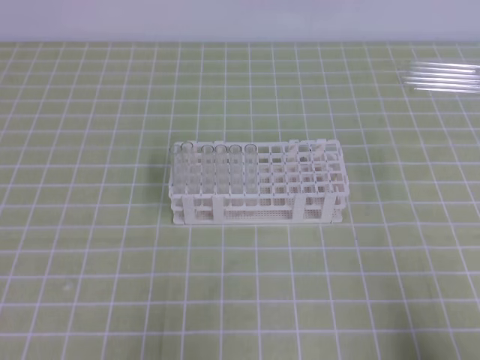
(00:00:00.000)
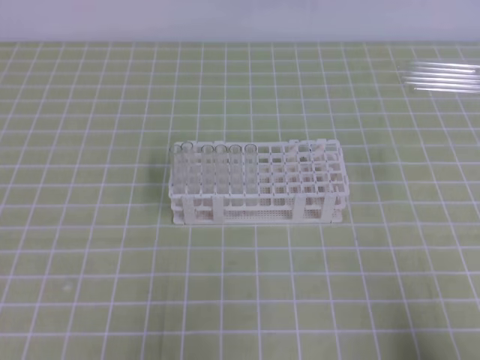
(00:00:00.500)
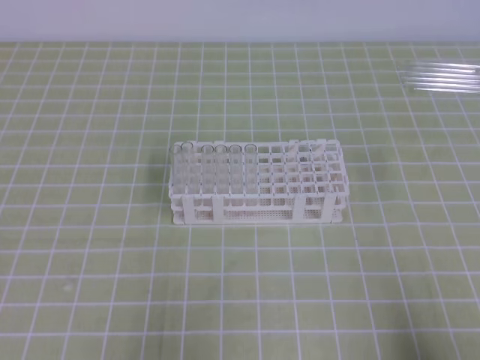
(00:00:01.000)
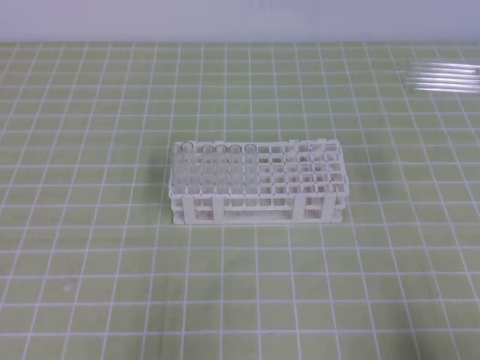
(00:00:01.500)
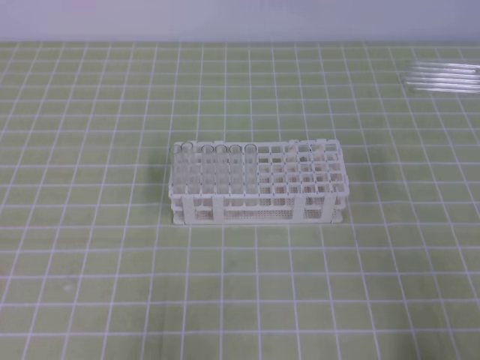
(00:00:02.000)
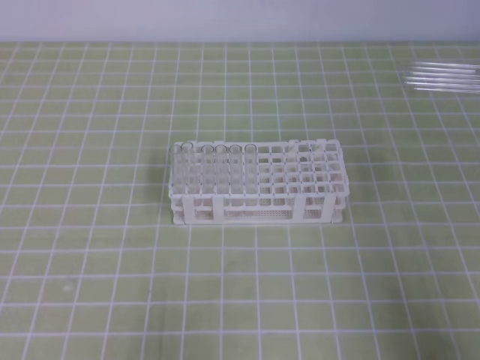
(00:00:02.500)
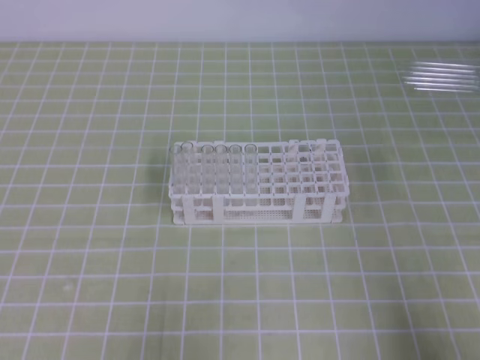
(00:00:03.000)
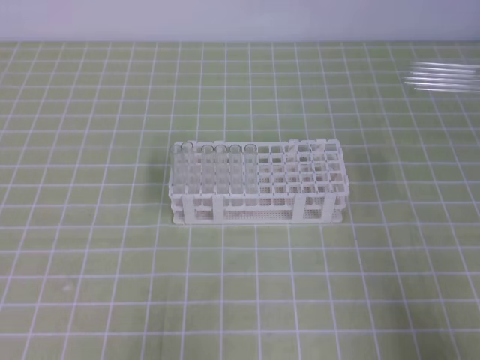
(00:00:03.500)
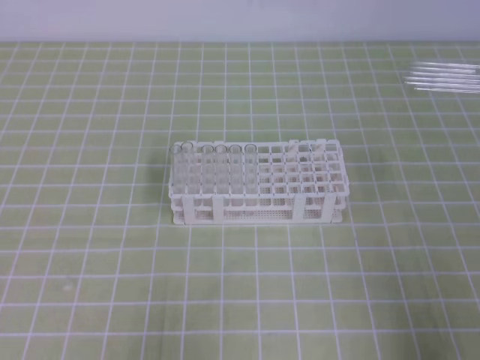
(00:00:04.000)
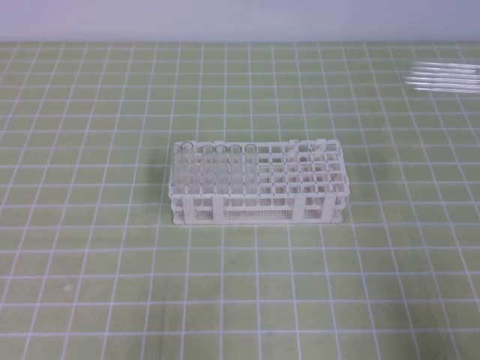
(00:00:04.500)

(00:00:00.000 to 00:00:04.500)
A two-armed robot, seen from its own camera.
00:00:00.000 - 00:00:04.500: Neither gripper changes place.

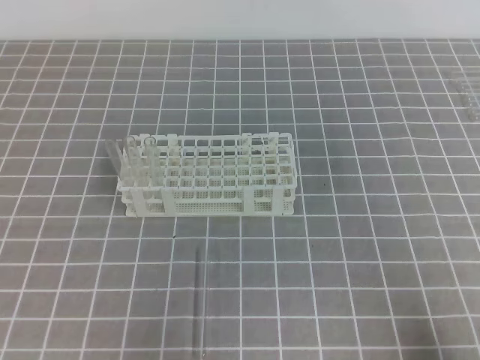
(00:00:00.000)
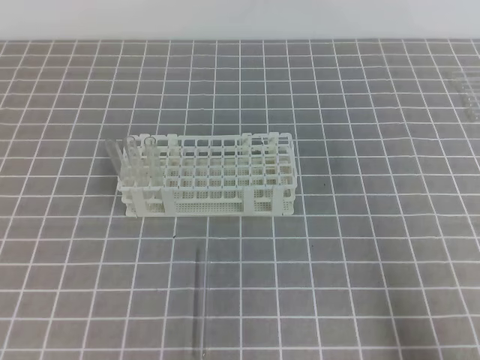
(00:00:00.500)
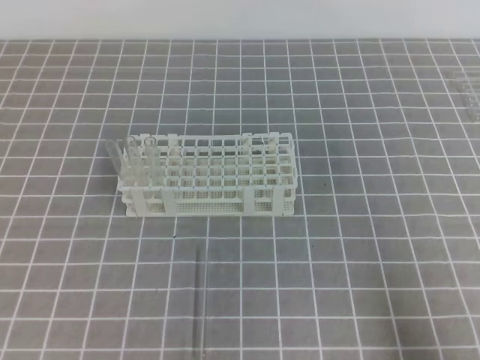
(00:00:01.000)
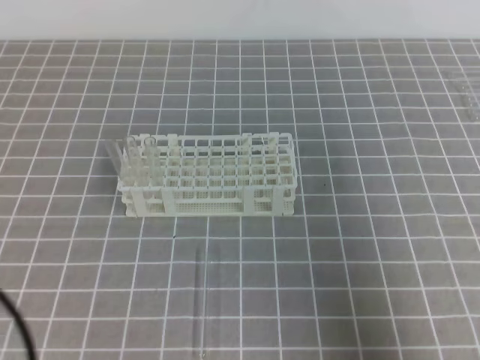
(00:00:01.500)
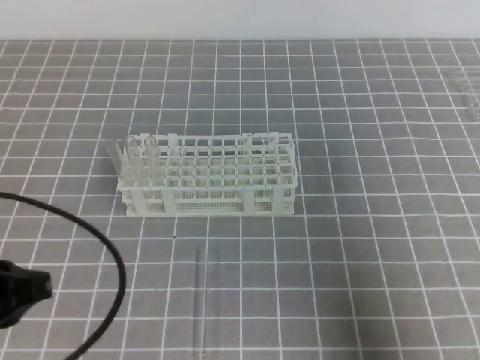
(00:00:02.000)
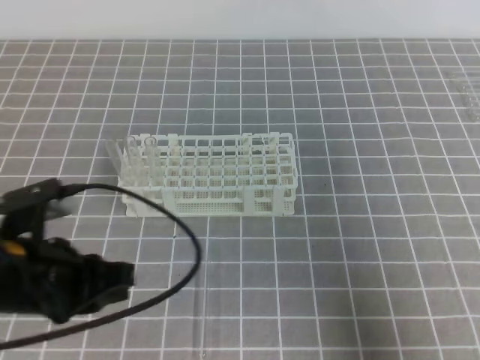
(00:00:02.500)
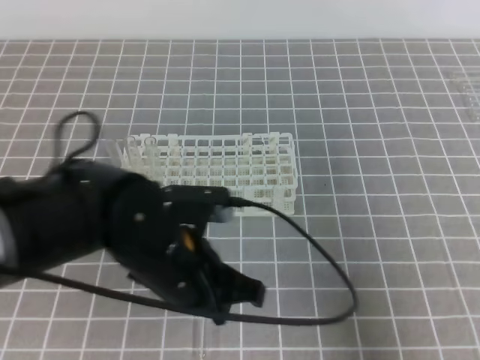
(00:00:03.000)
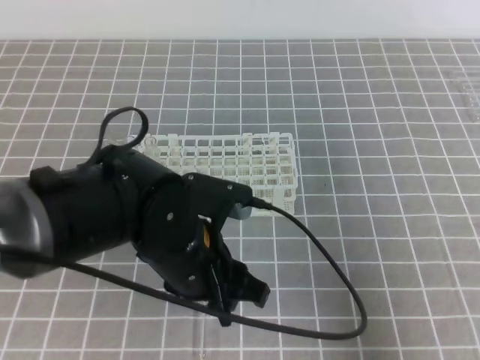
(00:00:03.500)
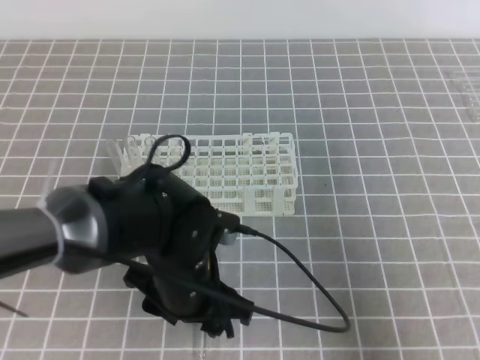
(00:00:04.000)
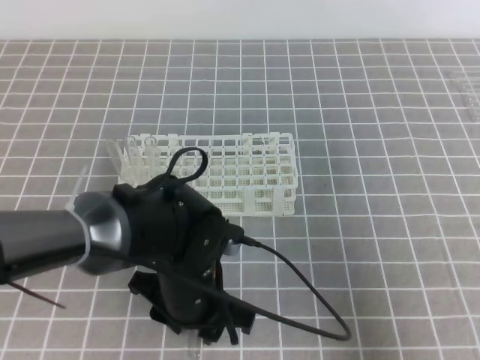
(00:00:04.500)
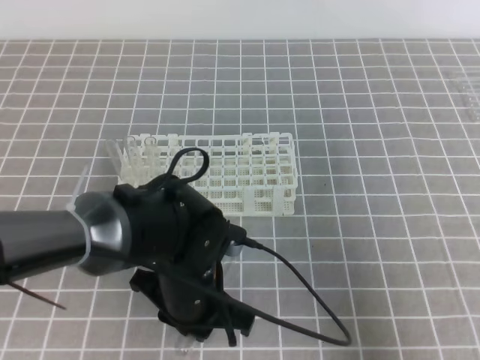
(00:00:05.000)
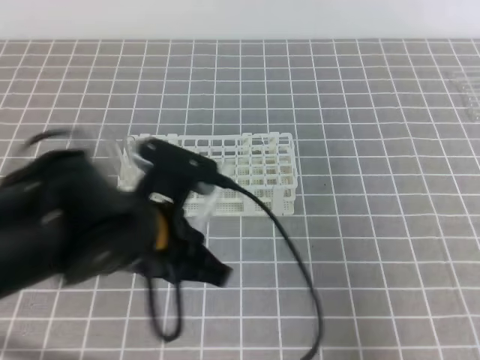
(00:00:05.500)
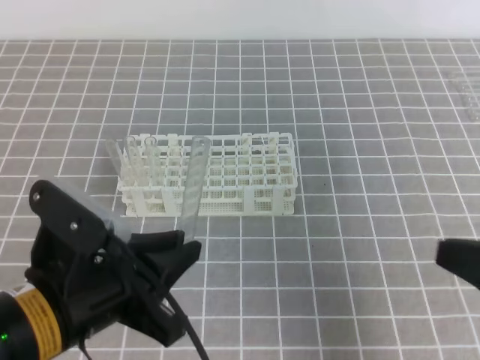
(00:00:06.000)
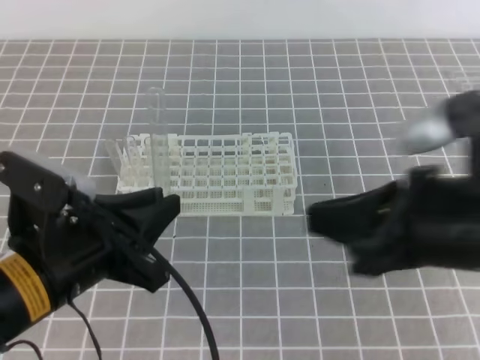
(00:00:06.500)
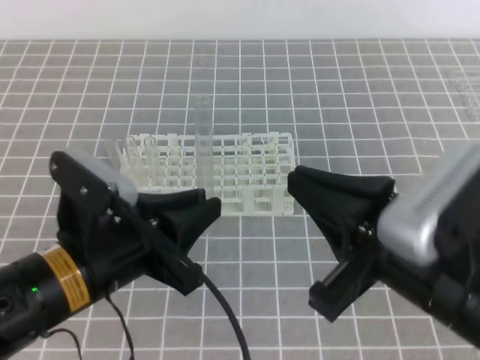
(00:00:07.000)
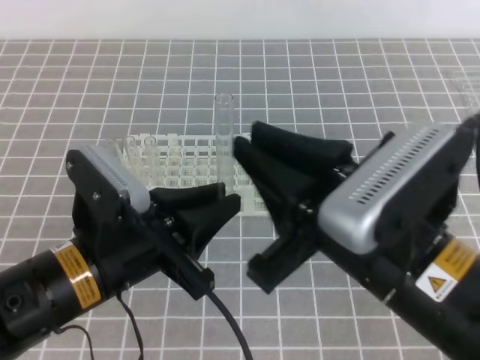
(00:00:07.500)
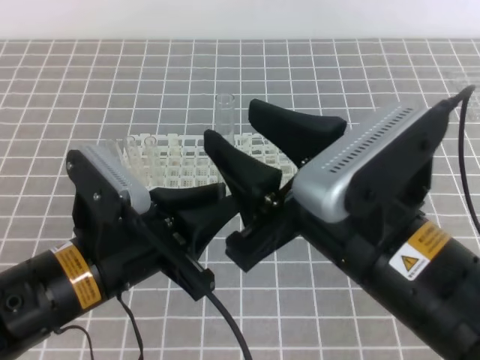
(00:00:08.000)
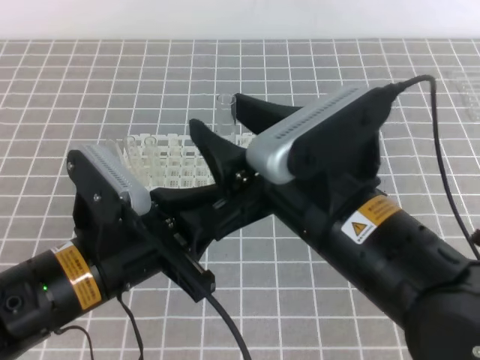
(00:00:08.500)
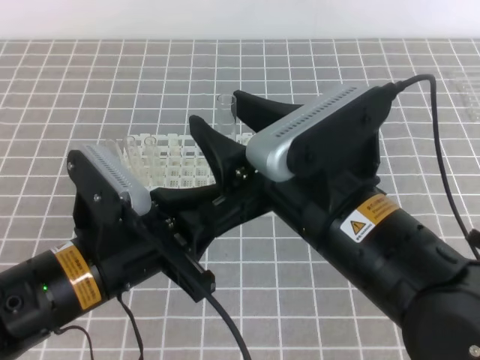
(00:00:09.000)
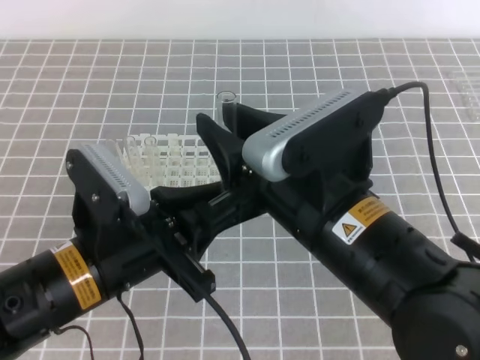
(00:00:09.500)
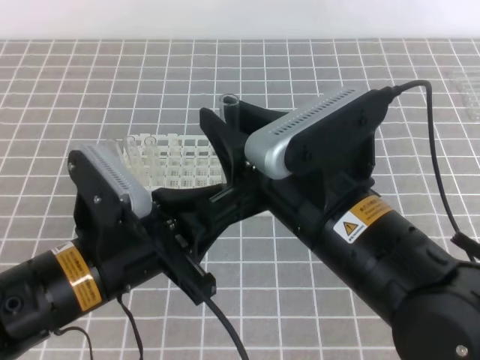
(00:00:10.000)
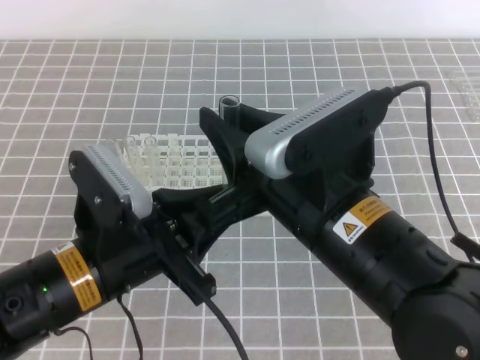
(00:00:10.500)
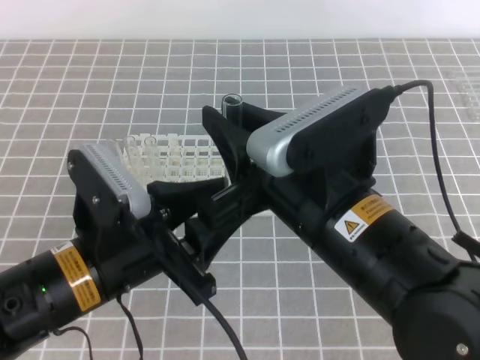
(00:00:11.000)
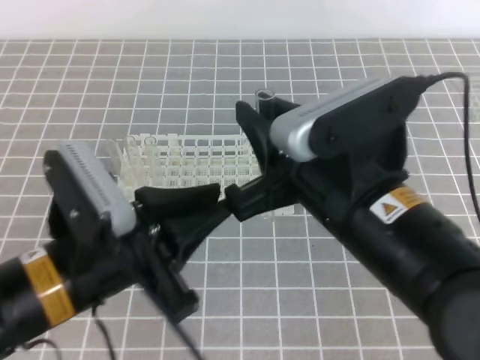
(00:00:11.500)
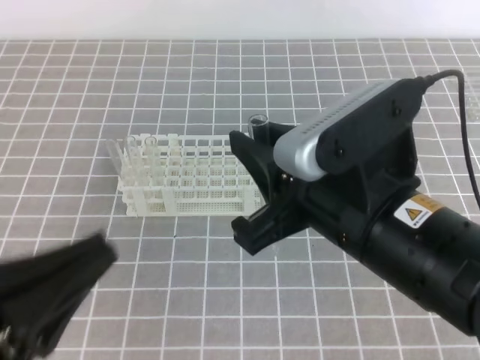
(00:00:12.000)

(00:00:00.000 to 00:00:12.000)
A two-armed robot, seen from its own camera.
00:00:00.000 - 00:00:02.000: The right gripper moves upward, some 10 cm; the left gripper is displaced upward and forward by approximately 10 cm.
00:00:02.000 - 00:00:04.000: The left gripper shifts about 25 cm to the right, downward and forward, and opens.
00:00:04.000 - 00:00:06.000: The right gripper moves some 5 cm. The left gripper moves to the left, upward and backward, approximately 15 cm, and closes.
00:00:06.000 - 00:00:08.000: The right gripper moves to the left, roughly 15 cm, and opens its fingers.
00:00:08.000 - 00:00:10.000: The right gripper closes its fingers.
00:00:10.000 - 00:00:12.000: The left gripper is displaced backward, to the left and upward by some 15 cm, and opens, then closes once more.

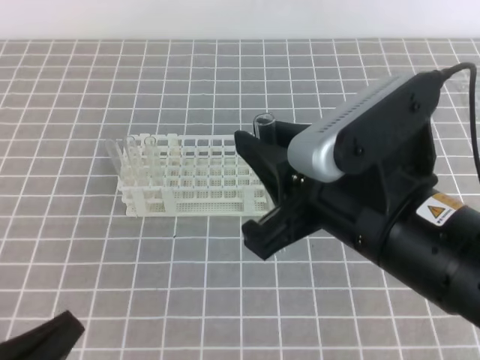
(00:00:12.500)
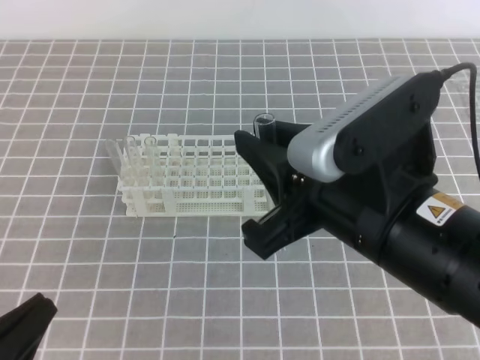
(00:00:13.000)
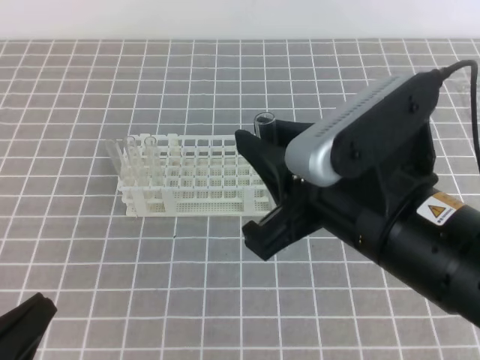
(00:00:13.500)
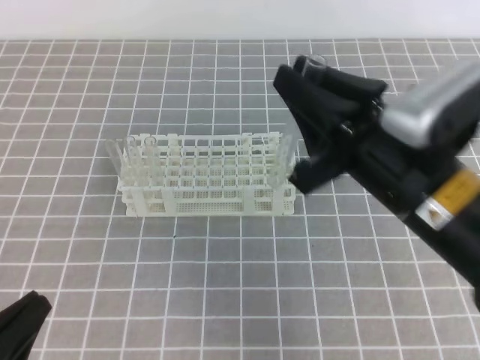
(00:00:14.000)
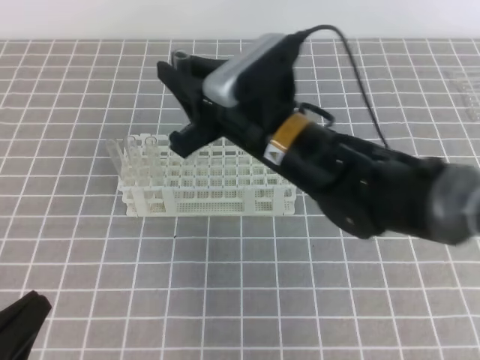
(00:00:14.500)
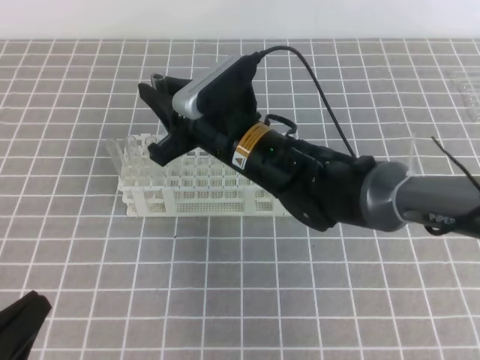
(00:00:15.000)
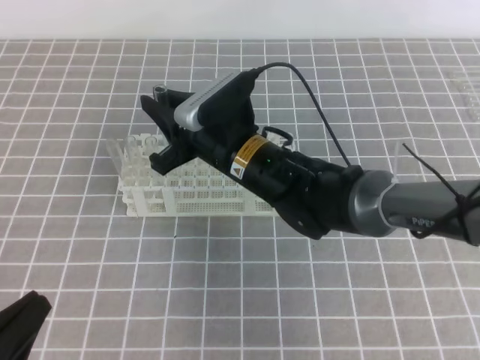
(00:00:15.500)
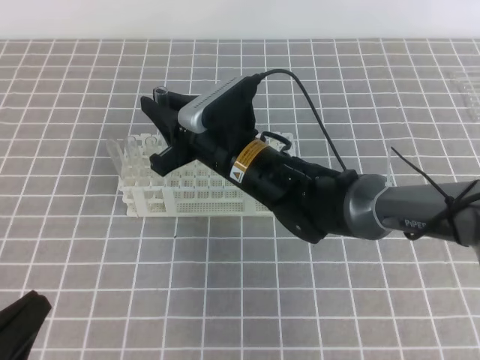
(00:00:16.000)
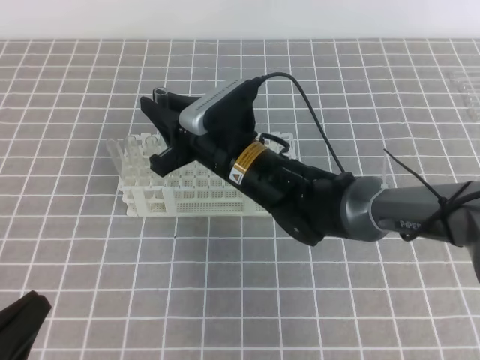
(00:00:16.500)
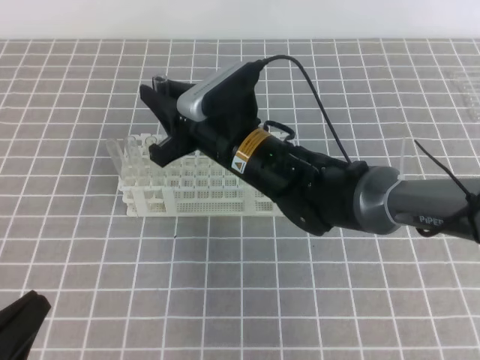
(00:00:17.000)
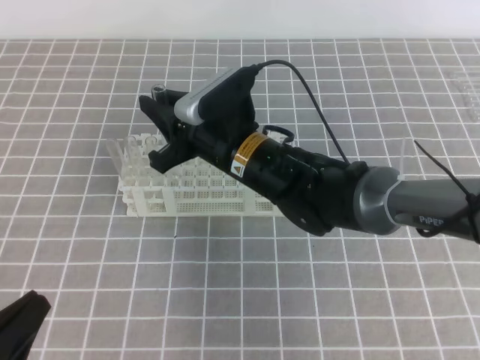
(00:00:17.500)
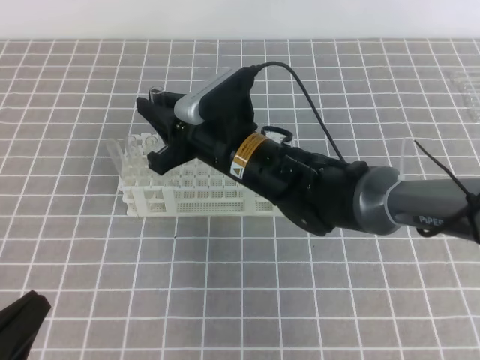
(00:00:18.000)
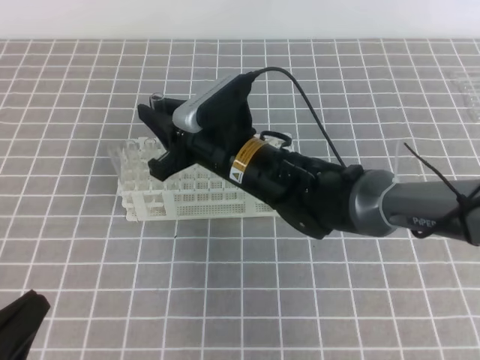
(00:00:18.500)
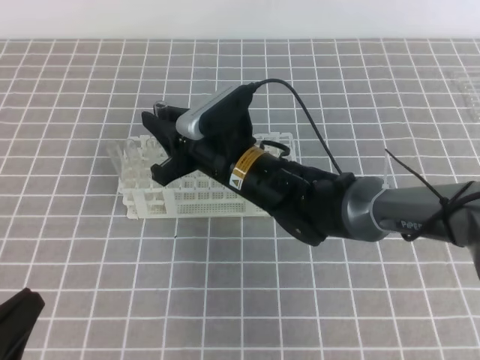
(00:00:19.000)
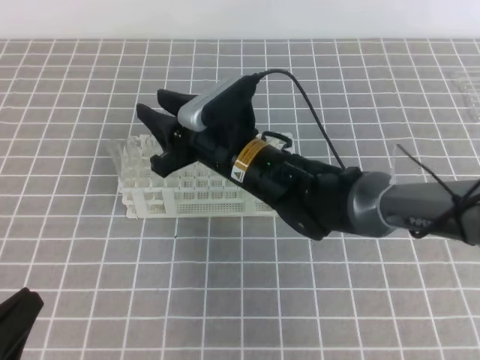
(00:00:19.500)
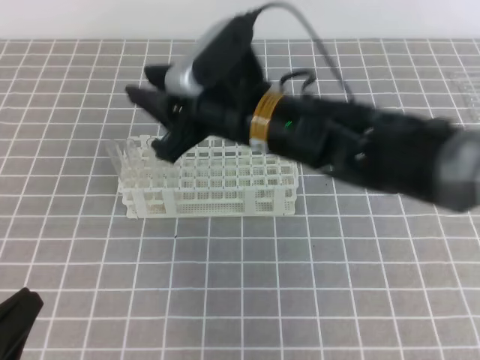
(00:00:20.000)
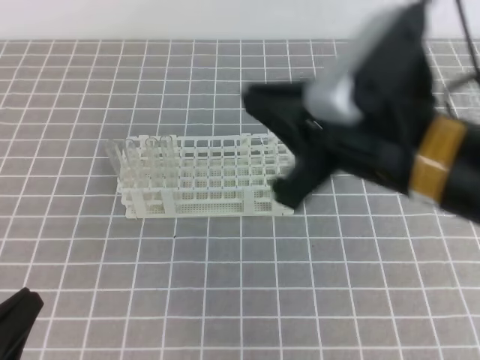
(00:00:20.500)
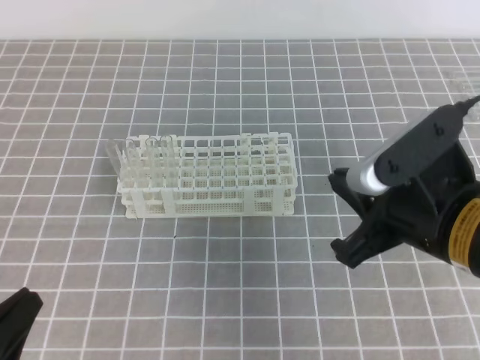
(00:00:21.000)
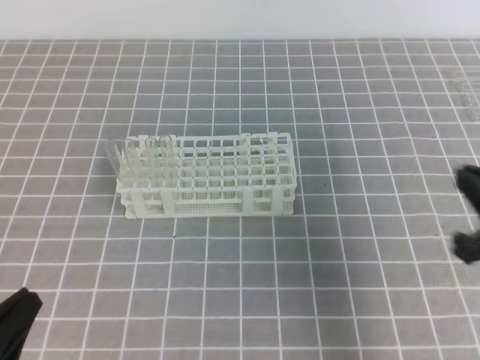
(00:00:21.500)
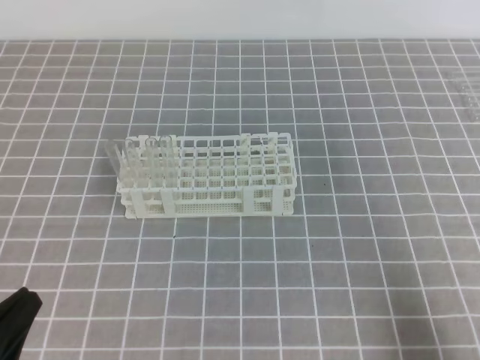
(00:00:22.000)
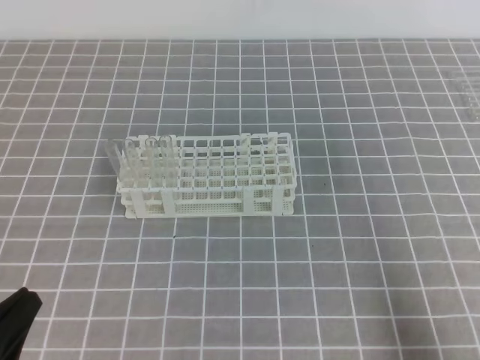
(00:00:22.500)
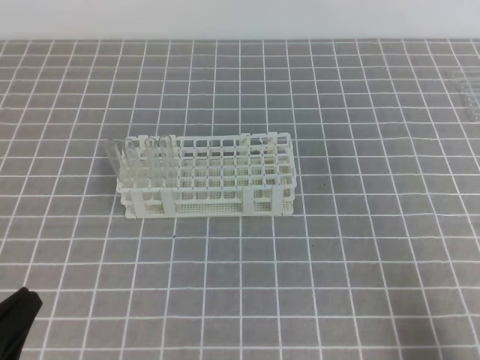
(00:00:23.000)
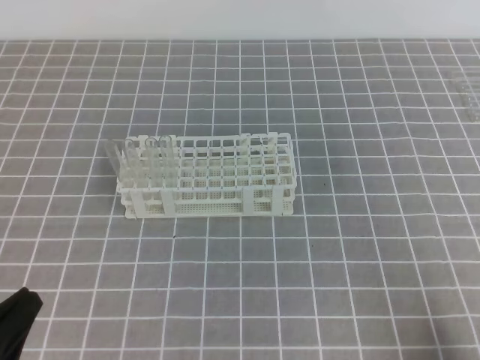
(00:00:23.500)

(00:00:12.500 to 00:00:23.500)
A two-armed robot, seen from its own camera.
00:00:12.500 - 00:00:14.500: The right gripper moves forward and to the left, some 15 cm.
00:00:14.500 - 00:00:16.000: The right gripper heads downward, covering approximately 5 cm.
00:00:16.000 - 00:00:18.000: The grippers move only a little.
00:00:18.000 - 00:00:20.000: The right gripper heads upward, covering roughly 5 cm.
00:00:20.000 - 00:00:21.500: The right gripper moves to the right and backward, about 25 cm, and closes its fingers.
00:00:21.500 - 00:00:23.500: The right gripper goes some 15 cm backward, downward and to the right.
